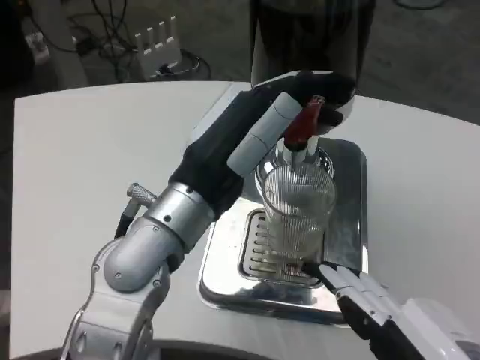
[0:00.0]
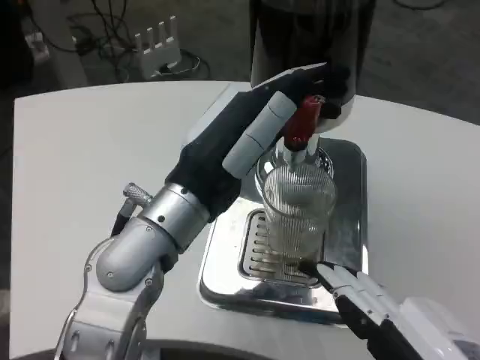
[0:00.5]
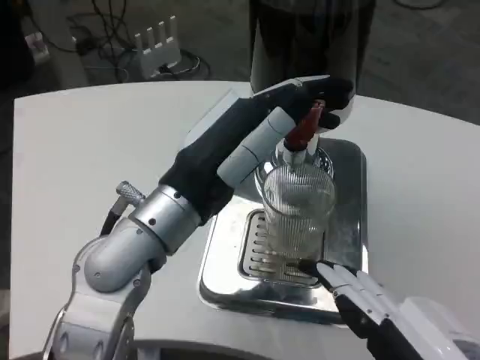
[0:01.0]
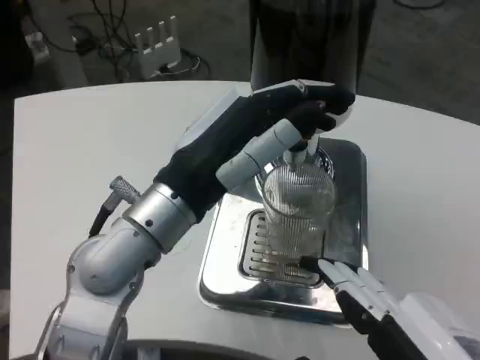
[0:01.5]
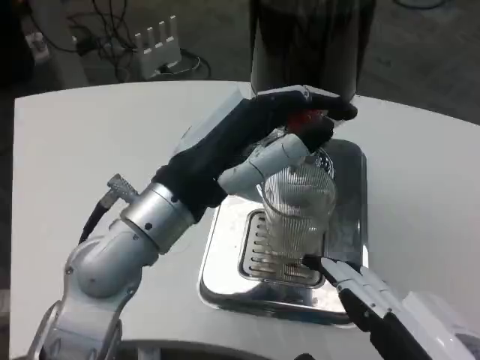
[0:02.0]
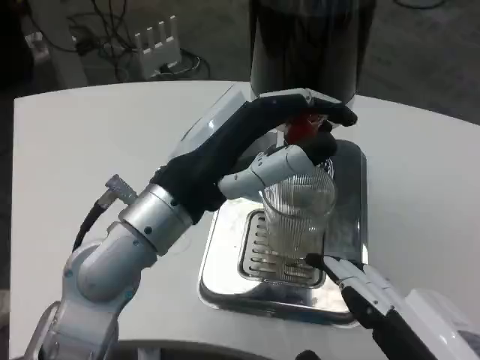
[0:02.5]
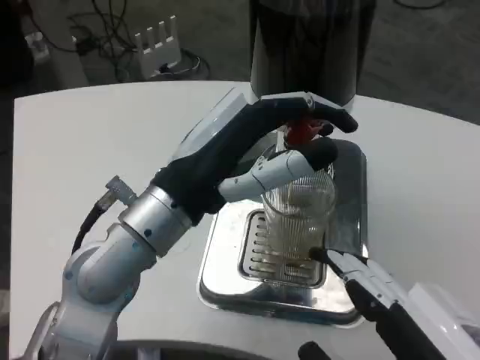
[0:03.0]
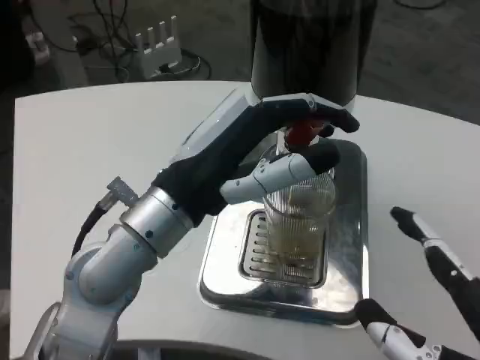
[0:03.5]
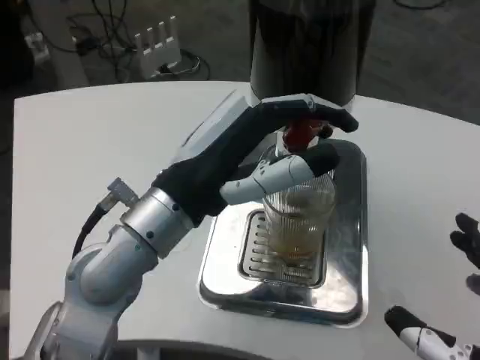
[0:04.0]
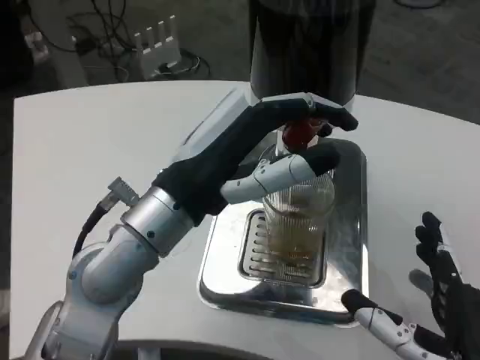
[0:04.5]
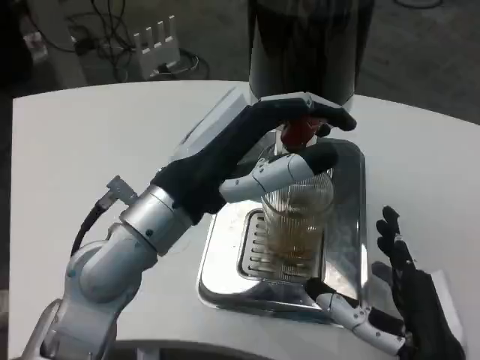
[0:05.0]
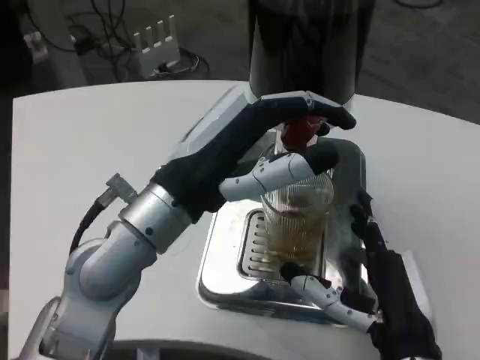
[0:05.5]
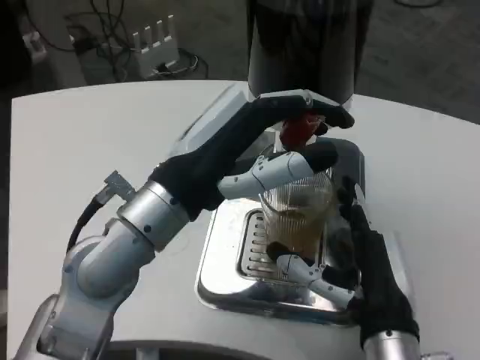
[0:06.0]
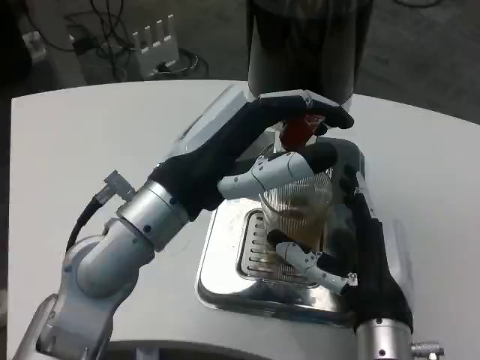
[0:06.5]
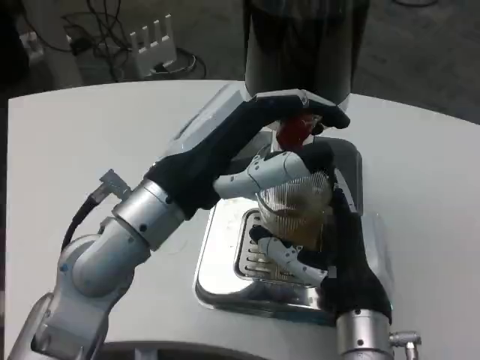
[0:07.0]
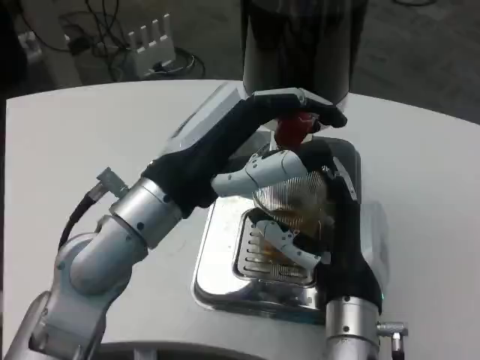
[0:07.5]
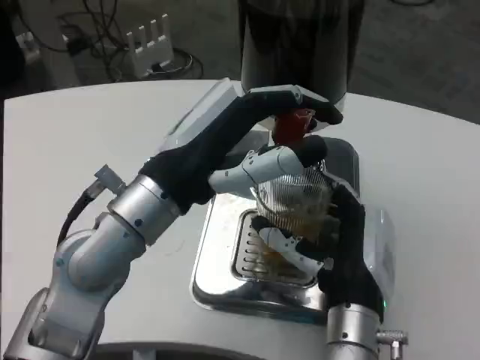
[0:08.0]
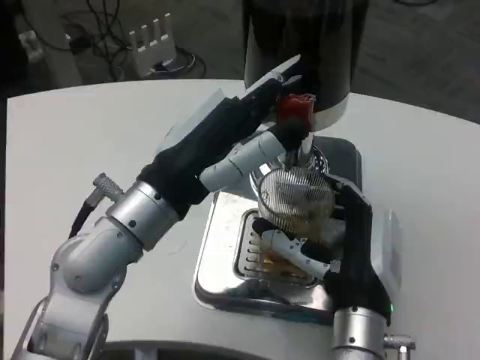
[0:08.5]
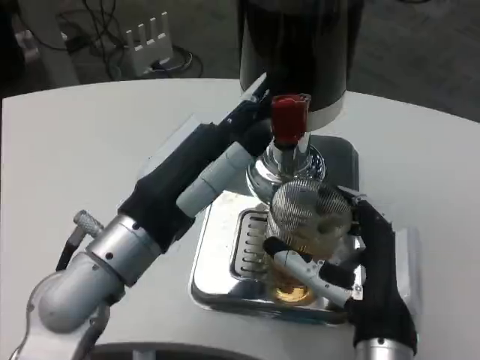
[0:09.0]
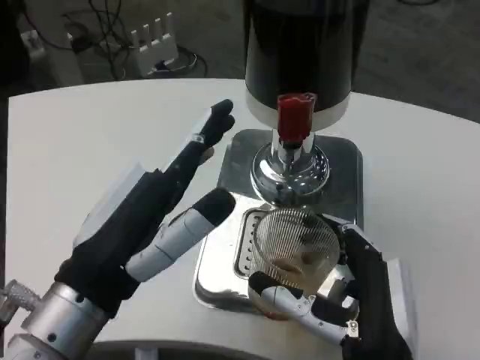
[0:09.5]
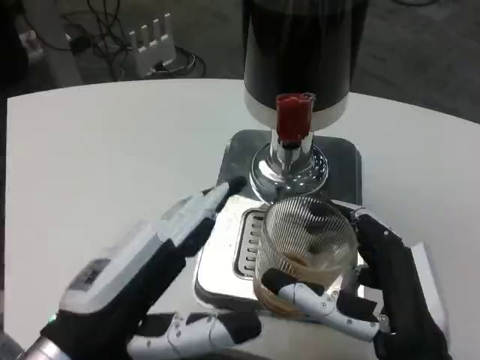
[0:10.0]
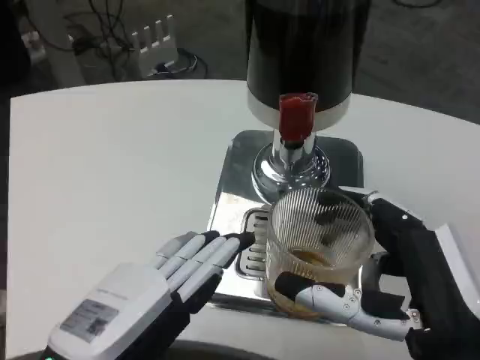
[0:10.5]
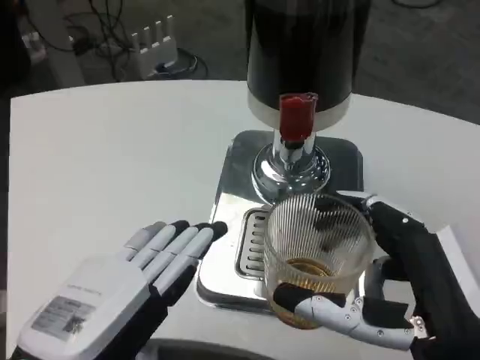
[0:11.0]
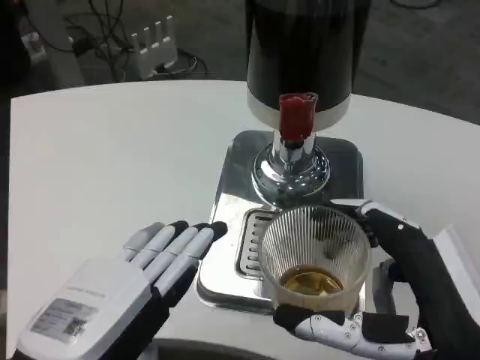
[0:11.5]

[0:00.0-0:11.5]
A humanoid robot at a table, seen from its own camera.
Task of the whole recording: Grasp the cup under the faucet to collect the drink, then remove the cup.
0:00.0 to 0:02.0: The hands move only a little.
0:04.0 to 0:06.0: The right hand is displaced forward and to the left by about 15 cm.
0:06.0 to 0:07.5: The right hand moves about 5 cm.
0:07.5 to 0:09.5: The two hands go some 10 cm backward.
0:09.5 to 0:11.5: The right hand travels to the right, upward and backward by about 10 cm; the left hand travels backward by about 5 cm.

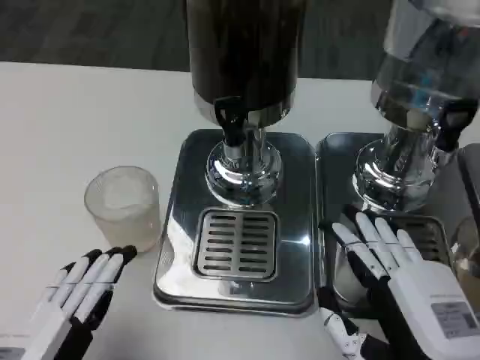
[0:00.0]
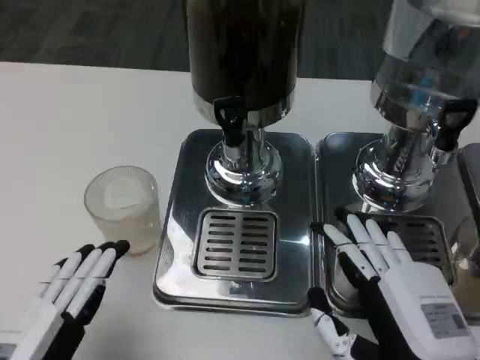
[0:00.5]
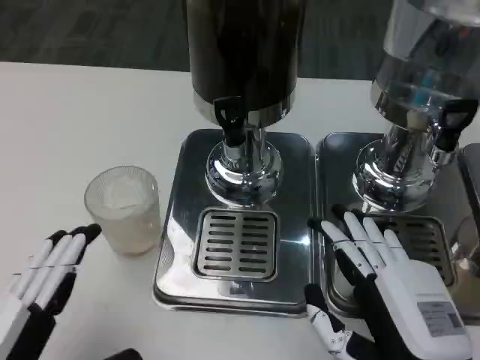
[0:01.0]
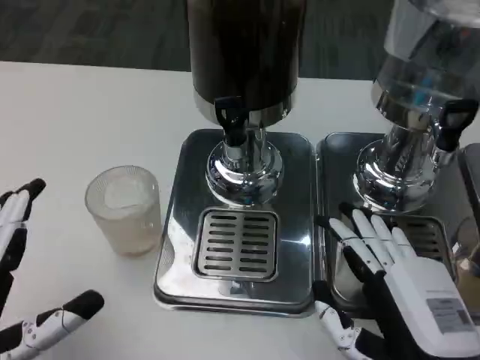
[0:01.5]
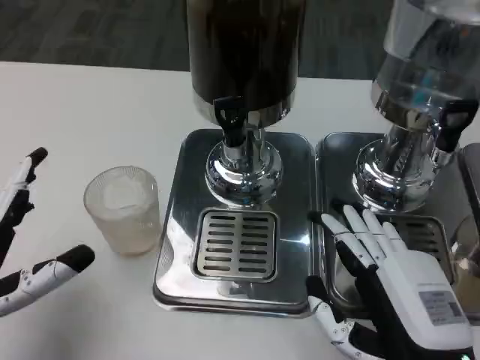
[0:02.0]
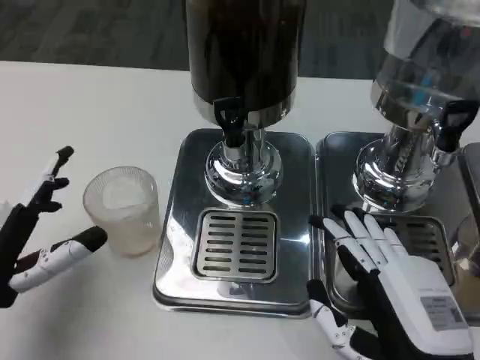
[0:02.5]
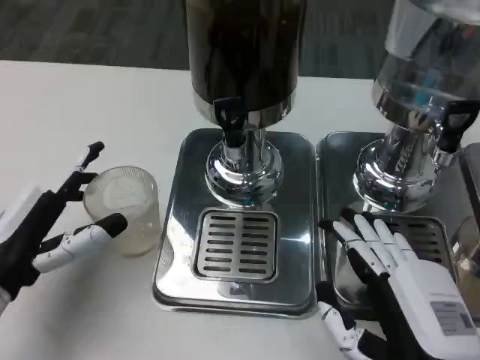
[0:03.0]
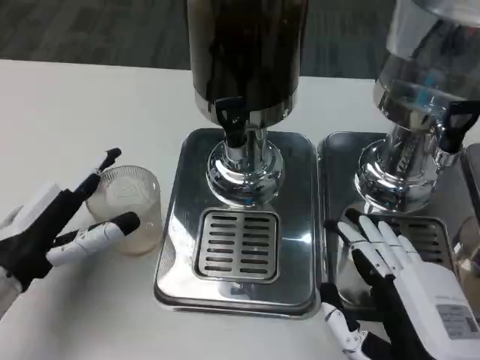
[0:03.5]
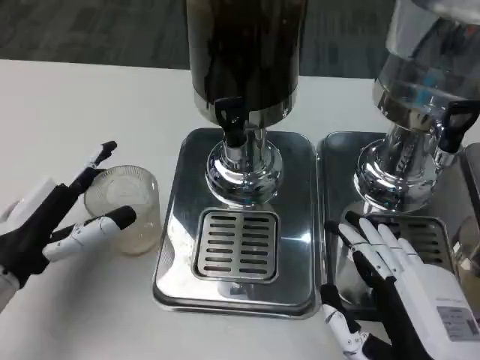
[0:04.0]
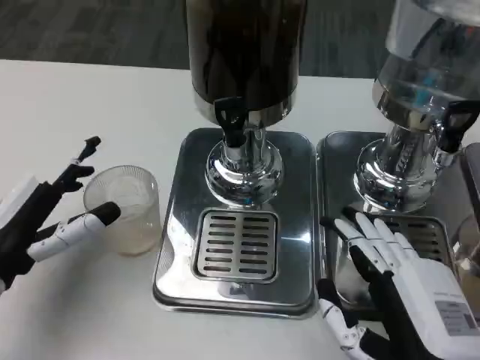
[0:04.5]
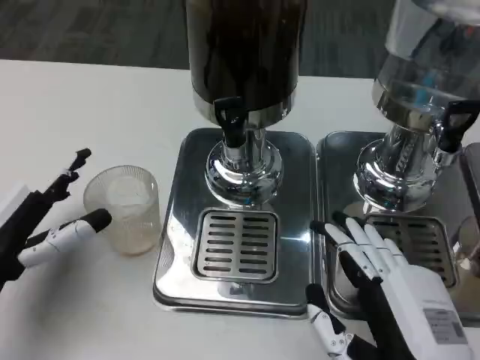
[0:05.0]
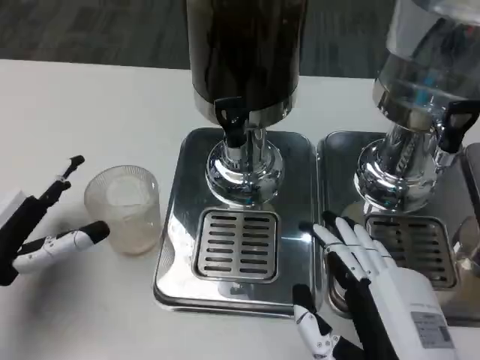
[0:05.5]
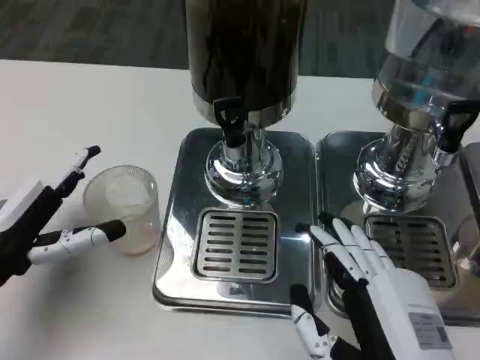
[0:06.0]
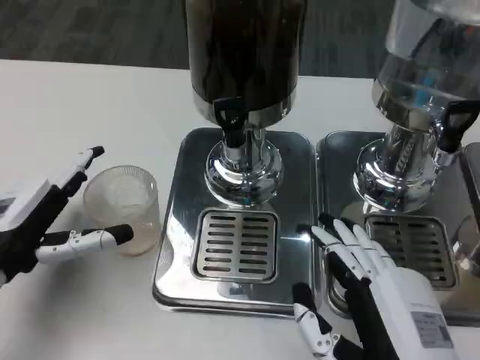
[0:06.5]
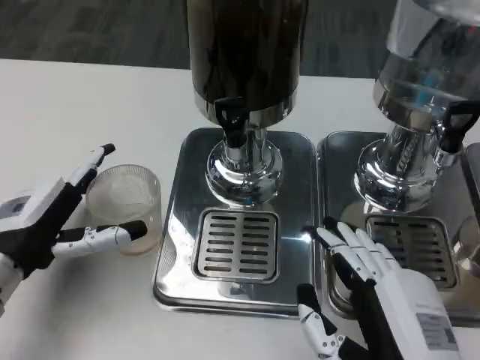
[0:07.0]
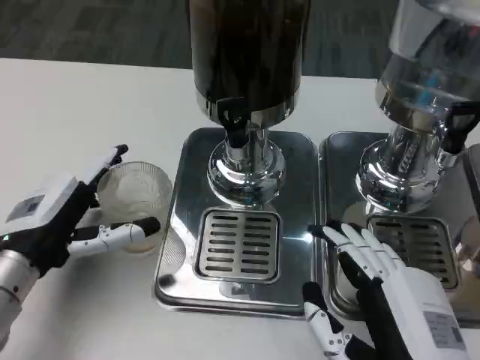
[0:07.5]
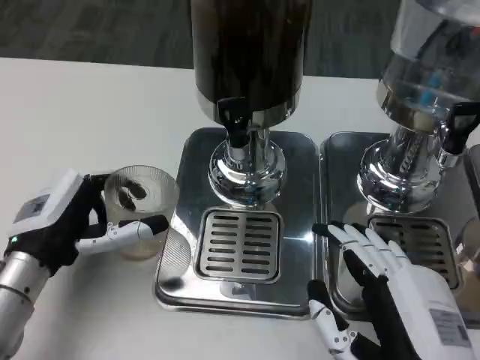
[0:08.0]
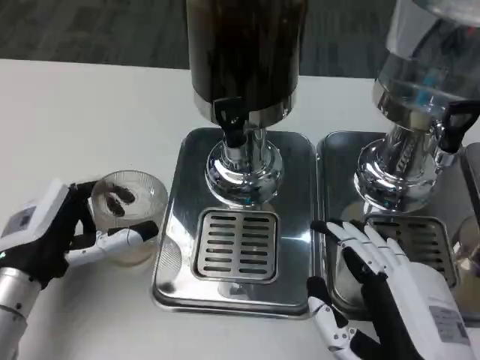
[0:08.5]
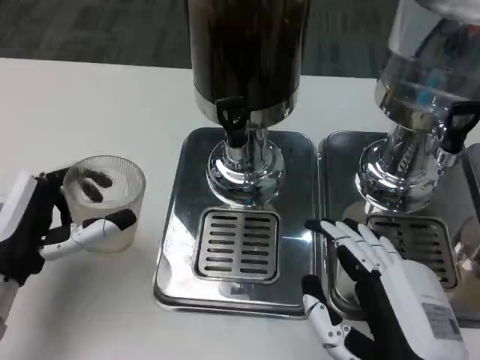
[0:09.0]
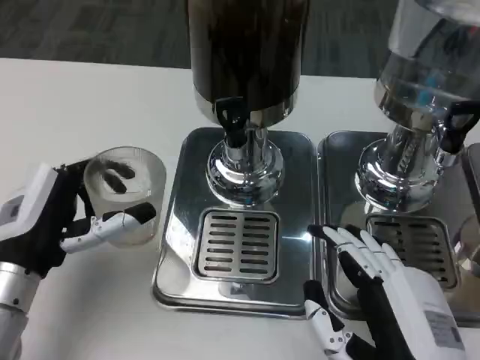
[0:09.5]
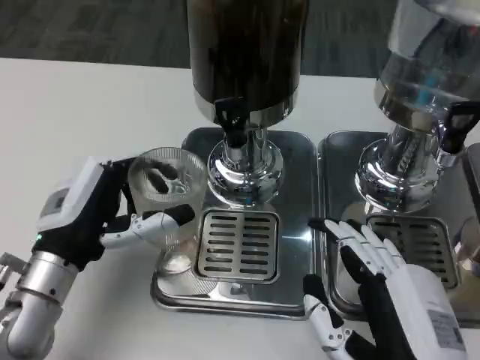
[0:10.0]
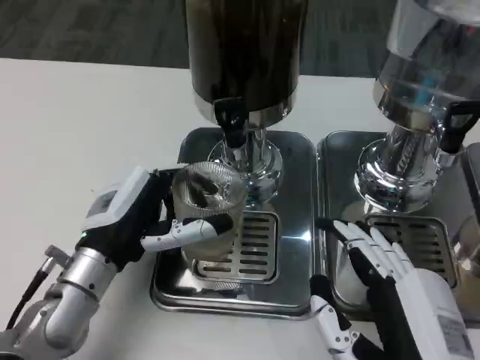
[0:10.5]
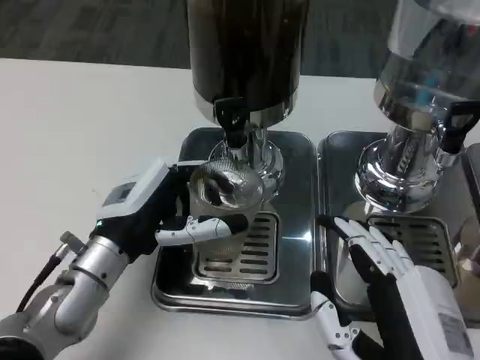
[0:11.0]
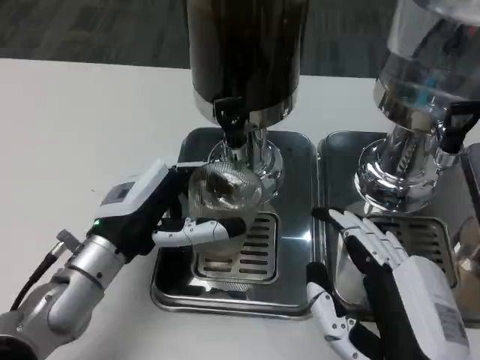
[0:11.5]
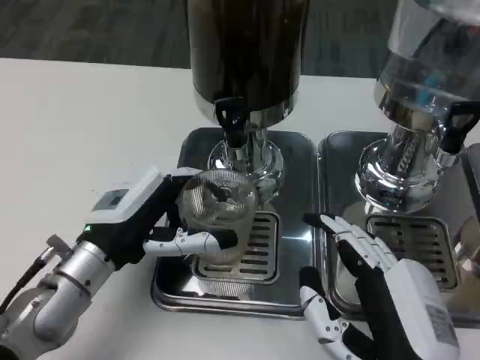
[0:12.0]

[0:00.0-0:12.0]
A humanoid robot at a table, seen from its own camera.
Task of the whole recording: Grasp the cup under the faucet to collect the drink, then remove the cup.
0:00.0 to 0:02.0: The left hand heads forward, covering roughly 5 cm.
0:02.0 to 0:04.0: The left hand shifts approximately 10 cm forward.
0:04.0 to 0:06.0: The hands stay close to where they were, moving slightly.
0:06.0 to 0:08.0: The left hand shifts by approximately 5 cm.

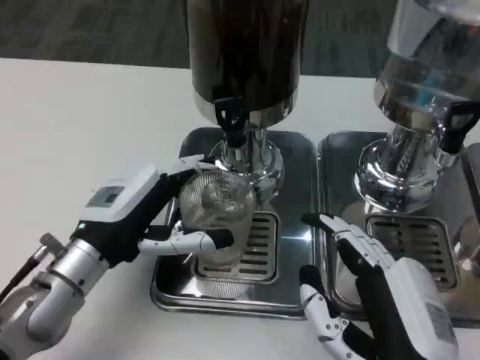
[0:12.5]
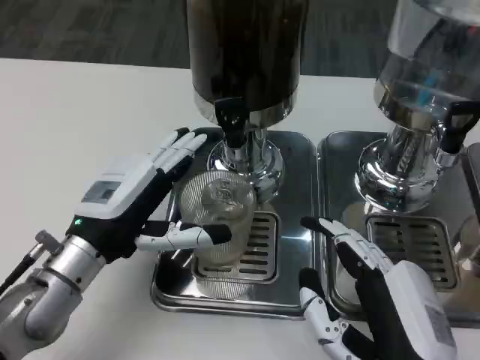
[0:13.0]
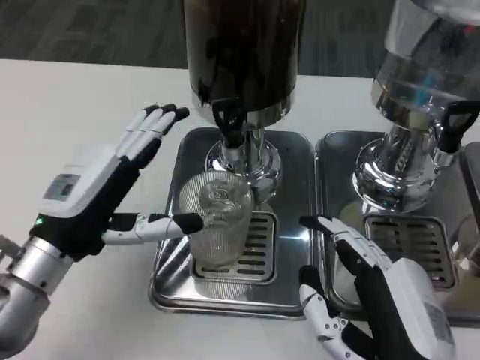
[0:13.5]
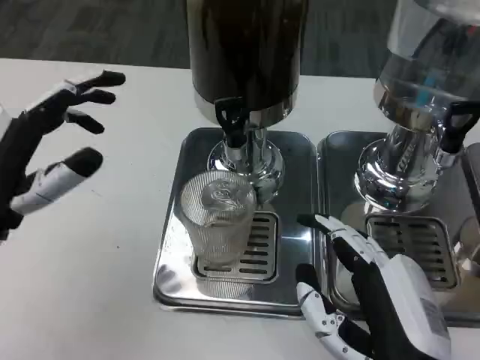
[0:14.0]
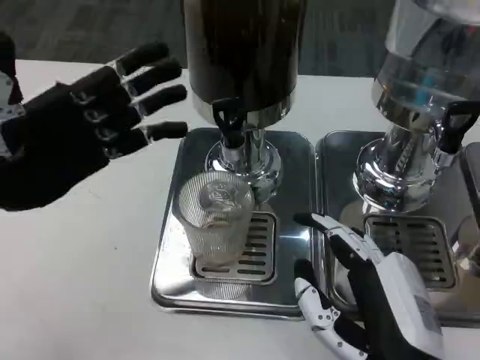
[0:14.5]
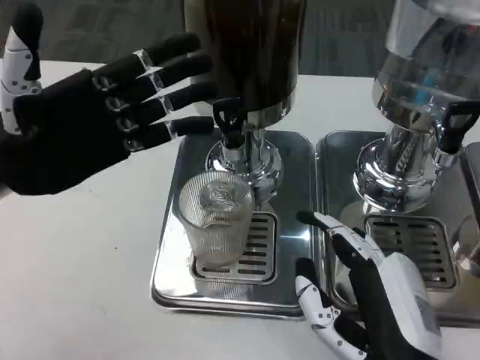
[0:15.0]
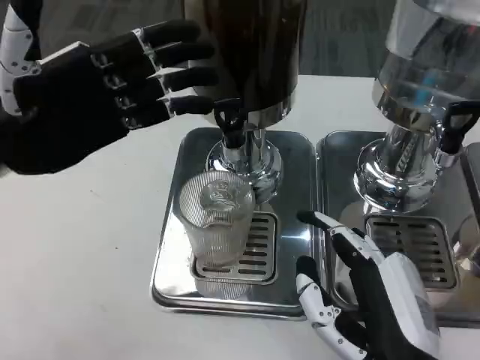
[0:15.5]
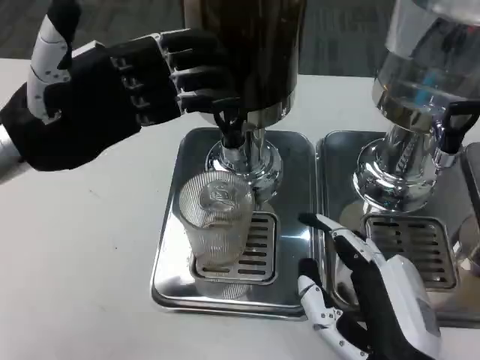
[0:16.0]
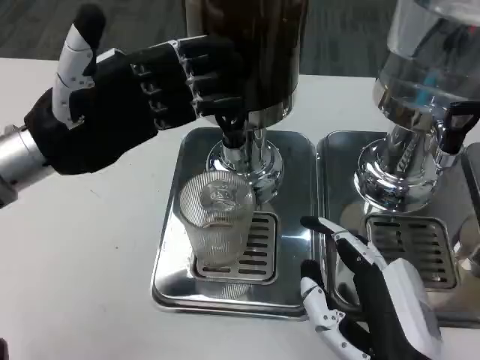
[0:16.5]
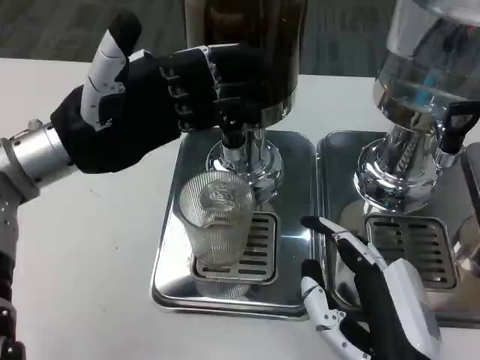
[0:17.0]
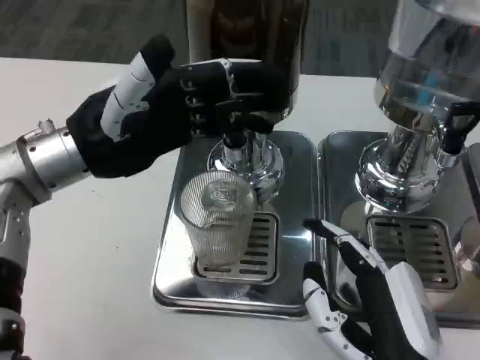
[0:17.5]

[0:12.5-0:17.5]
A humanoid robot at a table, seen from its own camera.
Task of the whole recording: Grasp the cup under the faucet to collect the drink, then remove the cup.
0:12.5 to 0:15.0: The left hand shifts about 15 cm upward and to the left.
0:15.0 to 0:17.5: The left hand heads to the right, covering some 5 cm.
